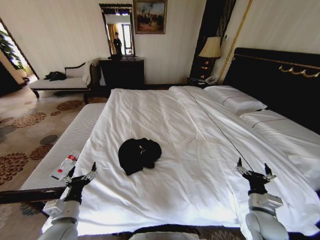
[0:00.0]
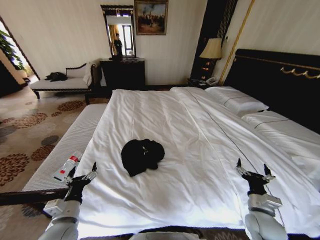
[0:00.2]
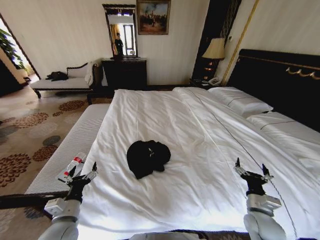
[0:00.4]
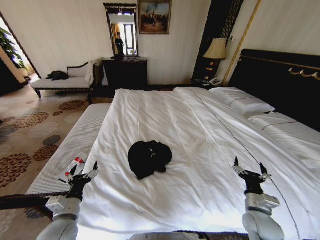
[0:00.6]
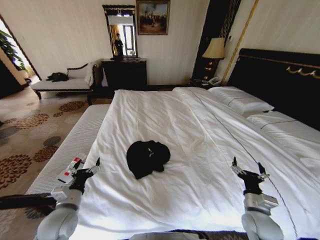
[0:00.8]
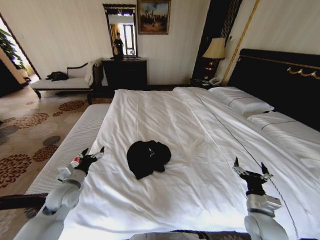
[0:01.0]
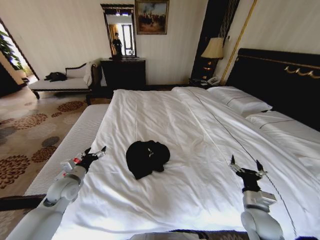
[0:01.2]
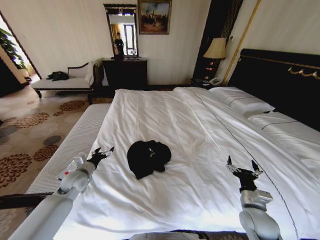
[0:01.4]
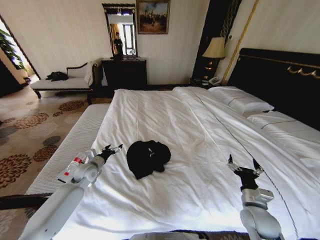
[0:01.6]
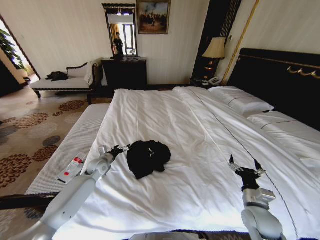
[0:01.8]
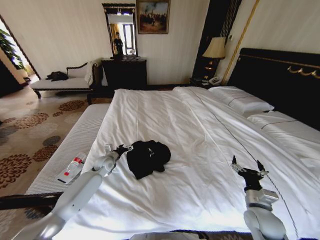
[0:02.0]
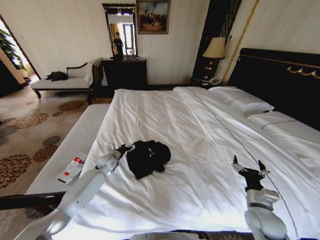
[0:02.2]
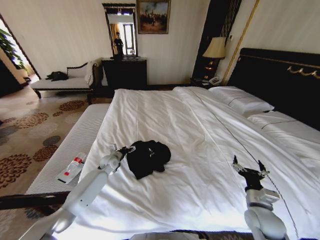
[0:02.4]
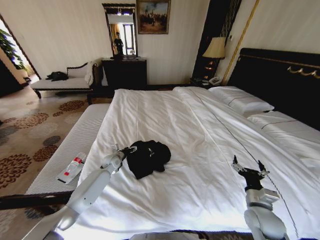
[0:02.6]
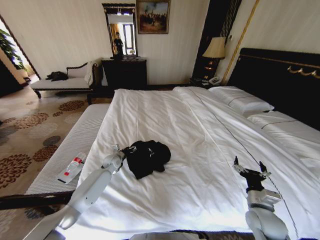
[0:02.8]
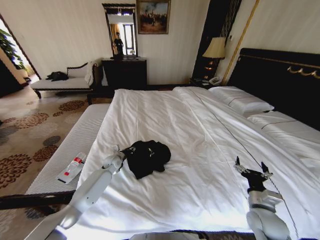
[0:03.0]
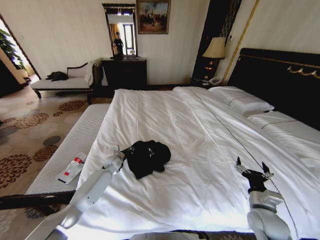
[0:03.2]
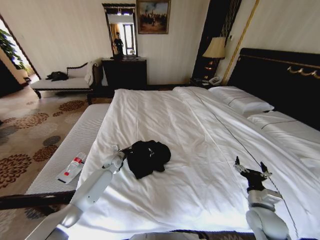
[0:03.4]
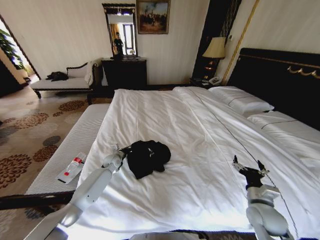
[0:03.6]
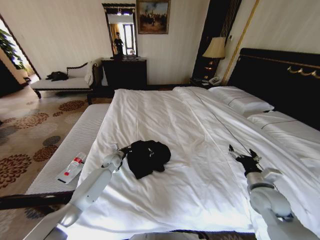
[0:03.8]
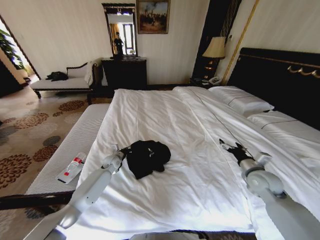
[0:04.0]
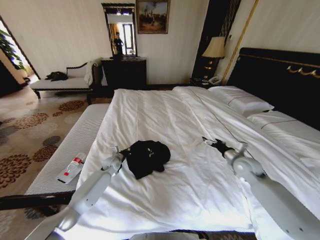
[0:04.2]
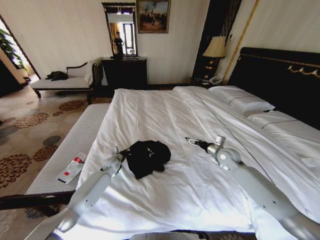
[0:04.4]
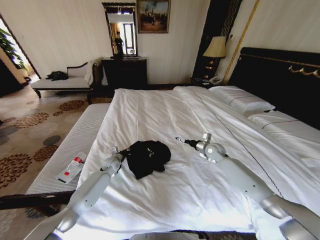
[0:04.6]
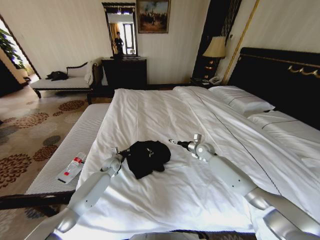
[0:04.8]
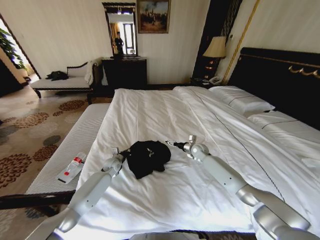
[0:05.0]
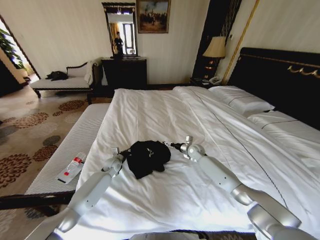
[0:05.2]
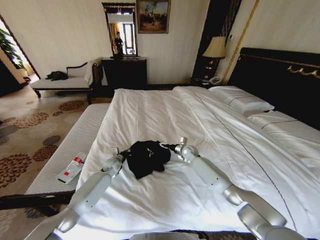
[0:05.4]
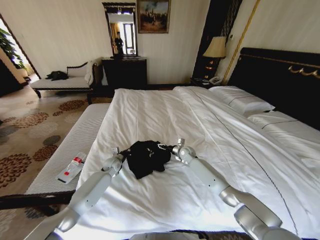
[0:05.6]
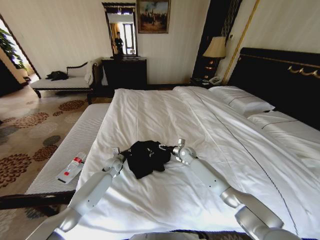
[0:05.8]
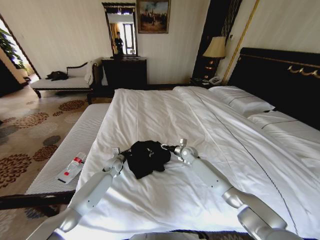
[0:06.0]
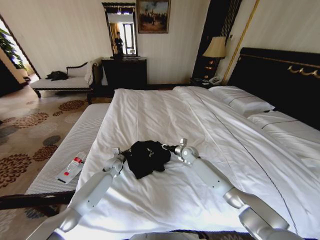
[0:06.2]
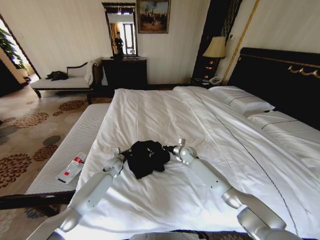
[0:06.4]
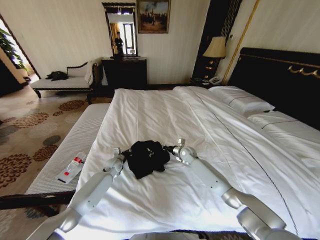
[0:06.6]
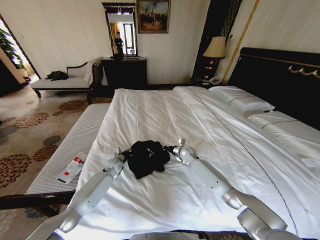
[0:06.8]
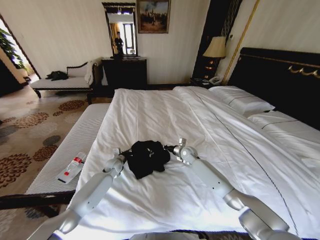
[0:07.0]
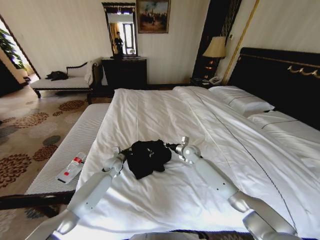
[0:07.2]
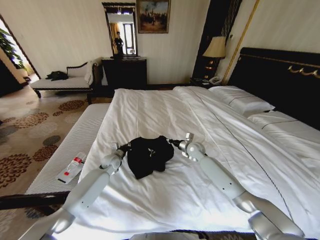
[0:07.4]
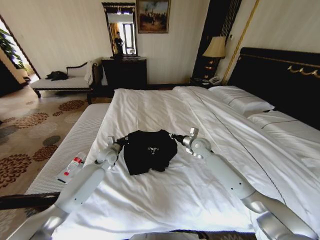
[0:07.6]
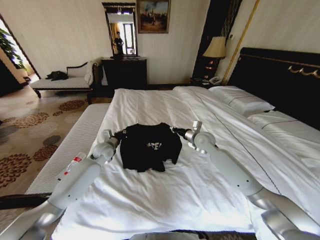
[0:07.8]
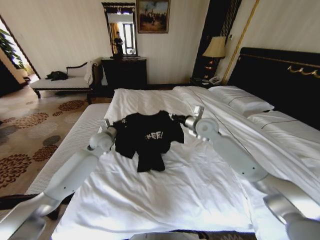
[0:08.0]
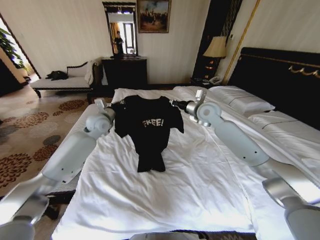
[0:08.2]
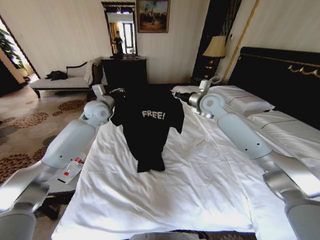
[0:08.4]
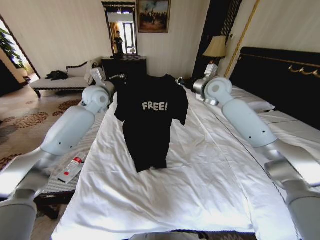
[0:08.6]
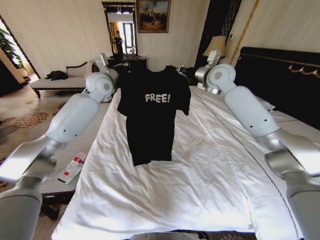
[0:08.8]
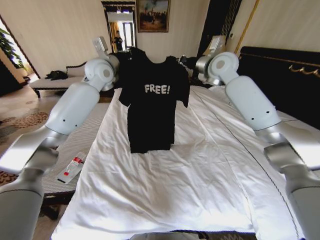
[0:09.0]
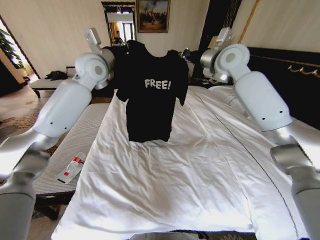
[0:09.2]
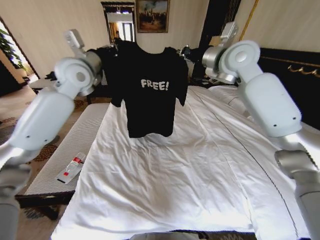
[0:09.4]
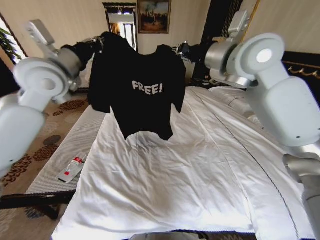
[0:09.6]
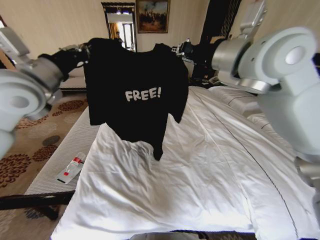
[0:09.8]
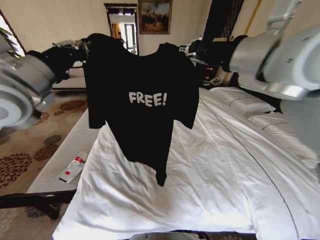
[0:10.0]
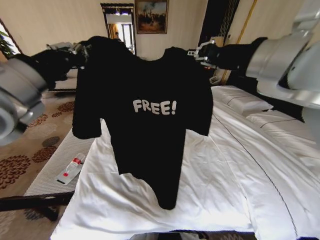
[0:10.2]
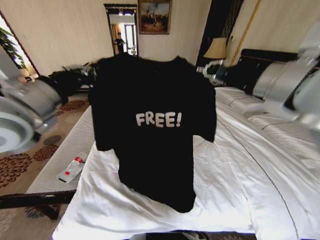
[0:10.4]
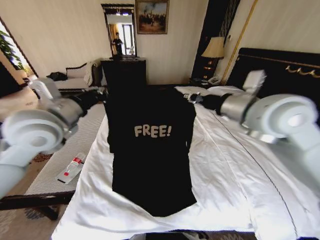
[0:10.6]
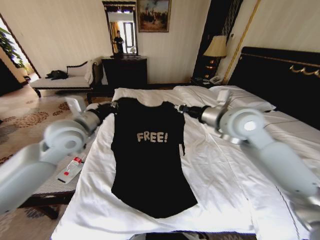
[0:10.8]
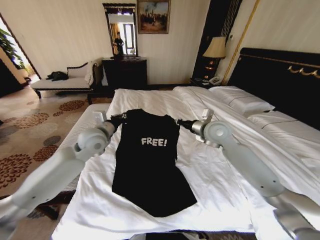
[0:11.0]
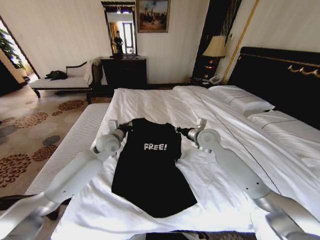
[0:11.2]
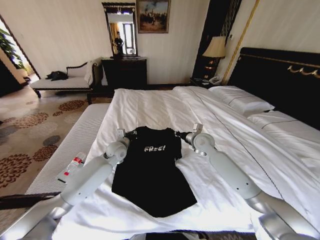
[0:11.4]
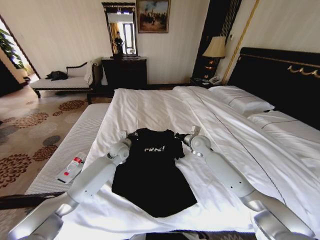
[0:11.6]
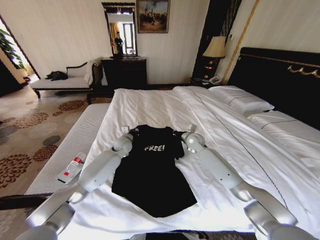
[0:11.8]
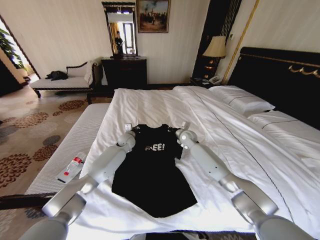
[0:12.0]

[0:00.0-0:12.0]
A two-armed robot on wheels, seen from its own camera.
Task of the whole recording: Fold the clothes on the bed.
0:00.0 to 0:01.6: The left gripper moves forward, approximately 20 cm.
0:01.6 to 0:03.0: The left gripper moves forward, to the right and downward, about 15 cm, and closes.
0:03.0 to 0:04.4: The left gripper closes, while the right gripper is displaced forward by approximately 25 cm.
0:04.4 to 0:06.0: The right gripper is displaced to the left, downward and forward by approximately 20 cm, and closes its fingers.
0:06.0 to 0:07.6: The two grippers go about 10 cm upward. The right gripper closes up.
0:07.6 to 0:09.0: The grippers both shift upward by some 35 cm.
0:09.0 to 0:10.4: The grippers both shift backward by roughly 30 cm.
0:10.4 to 0:12.0: Both grippers travel together downward and forward, roughly 50 cm.

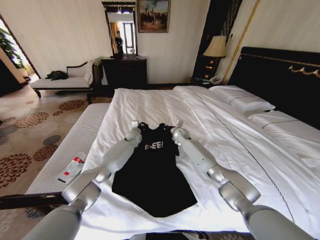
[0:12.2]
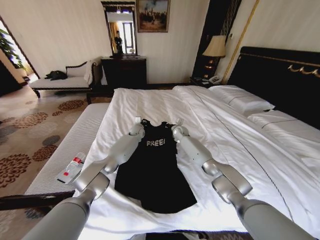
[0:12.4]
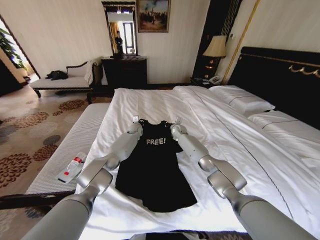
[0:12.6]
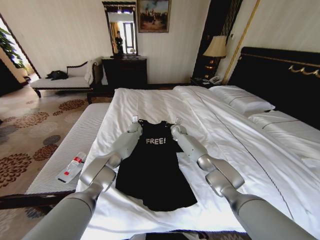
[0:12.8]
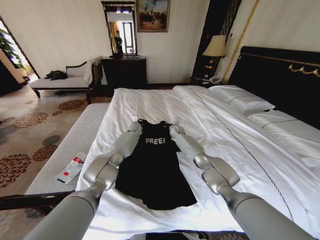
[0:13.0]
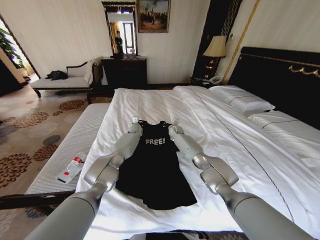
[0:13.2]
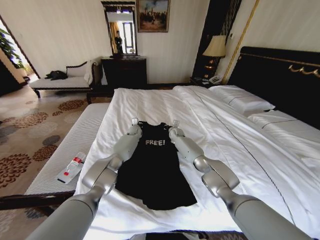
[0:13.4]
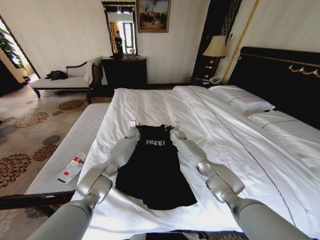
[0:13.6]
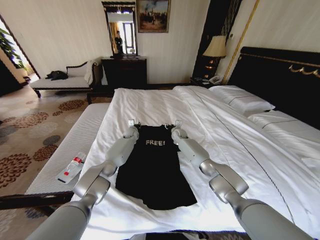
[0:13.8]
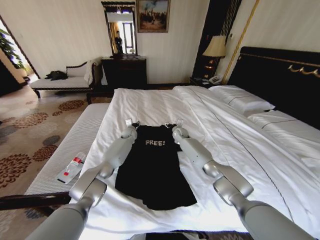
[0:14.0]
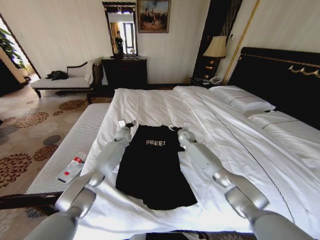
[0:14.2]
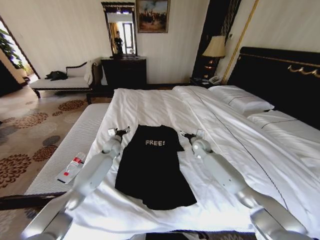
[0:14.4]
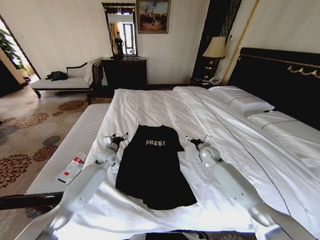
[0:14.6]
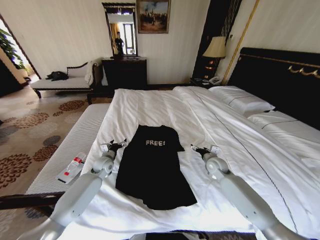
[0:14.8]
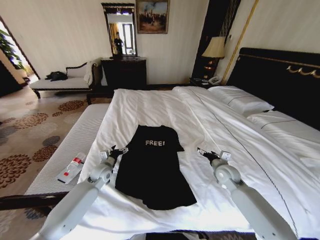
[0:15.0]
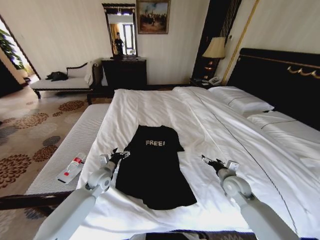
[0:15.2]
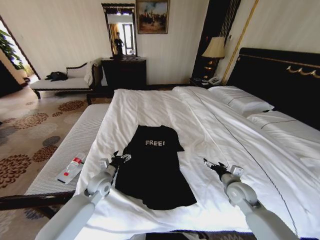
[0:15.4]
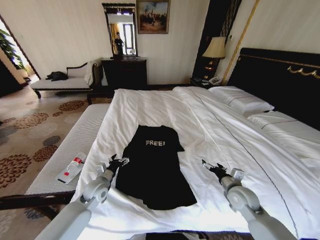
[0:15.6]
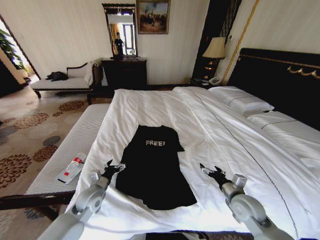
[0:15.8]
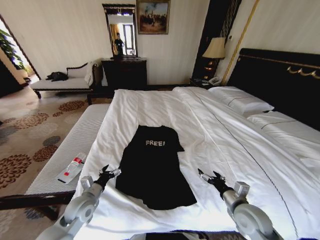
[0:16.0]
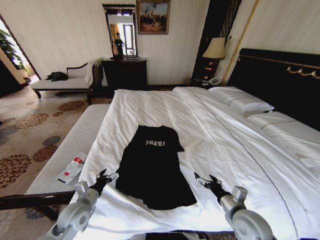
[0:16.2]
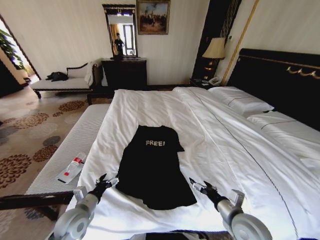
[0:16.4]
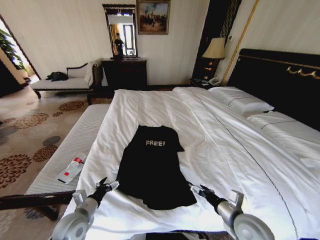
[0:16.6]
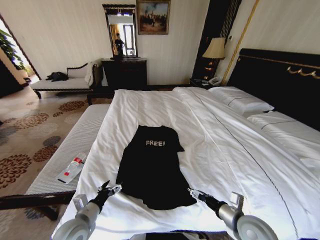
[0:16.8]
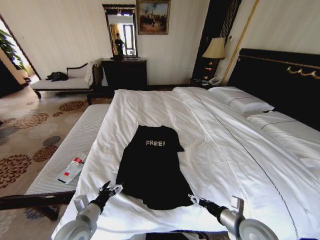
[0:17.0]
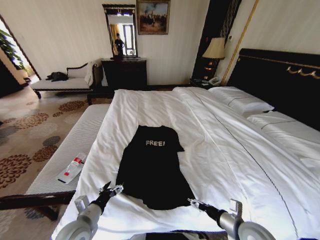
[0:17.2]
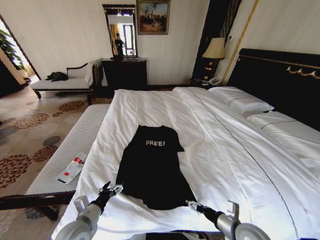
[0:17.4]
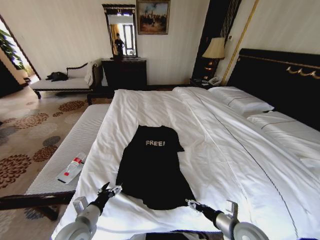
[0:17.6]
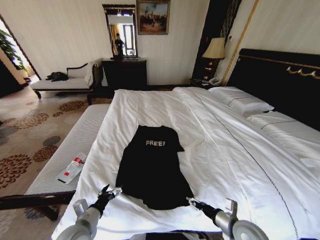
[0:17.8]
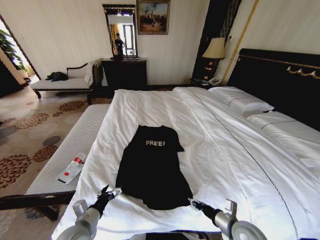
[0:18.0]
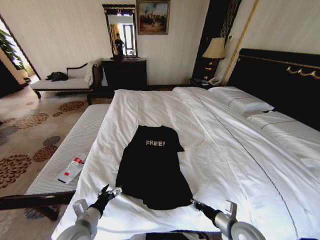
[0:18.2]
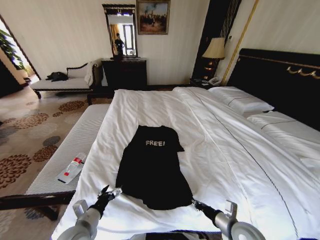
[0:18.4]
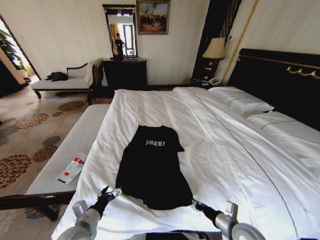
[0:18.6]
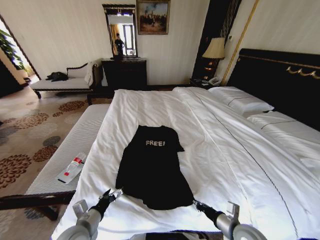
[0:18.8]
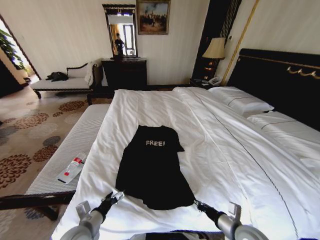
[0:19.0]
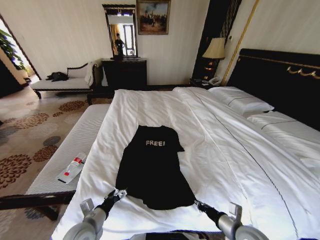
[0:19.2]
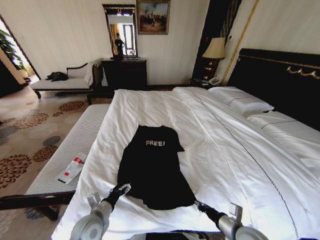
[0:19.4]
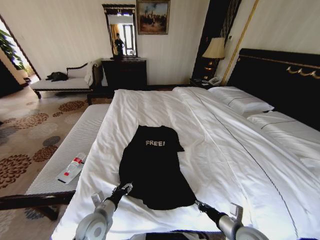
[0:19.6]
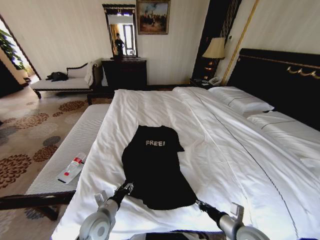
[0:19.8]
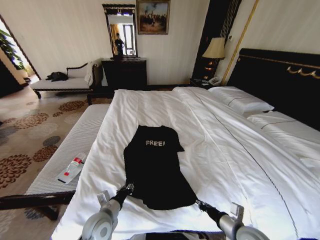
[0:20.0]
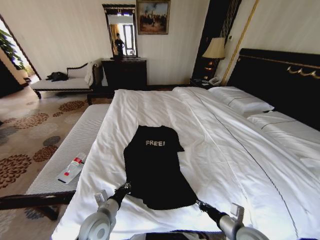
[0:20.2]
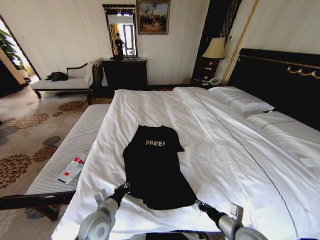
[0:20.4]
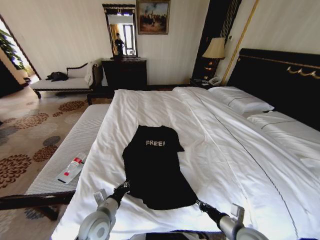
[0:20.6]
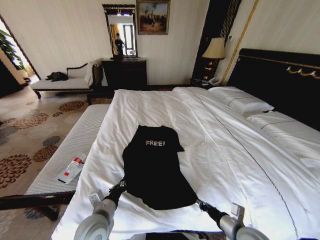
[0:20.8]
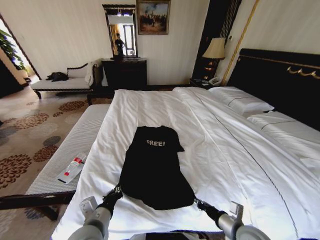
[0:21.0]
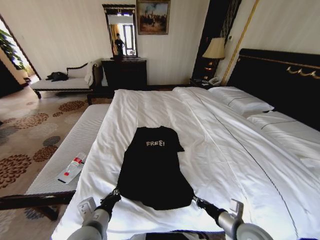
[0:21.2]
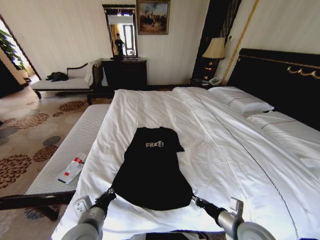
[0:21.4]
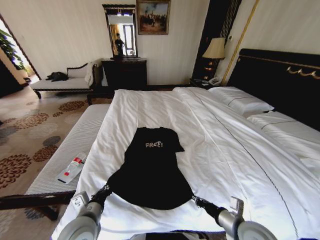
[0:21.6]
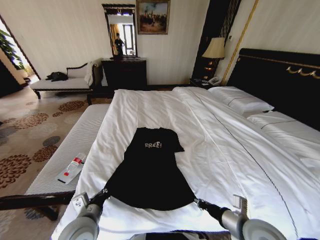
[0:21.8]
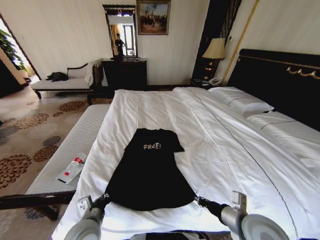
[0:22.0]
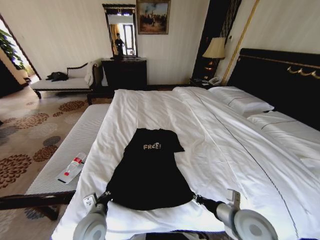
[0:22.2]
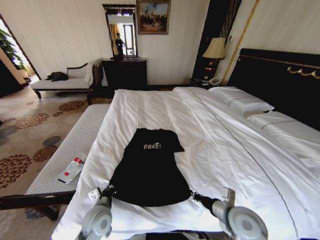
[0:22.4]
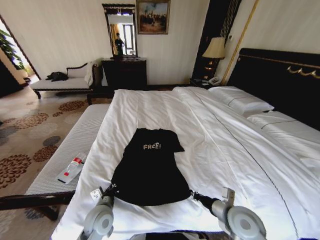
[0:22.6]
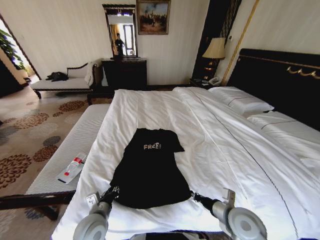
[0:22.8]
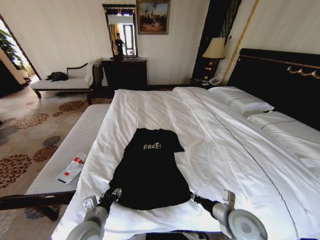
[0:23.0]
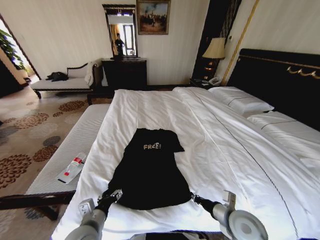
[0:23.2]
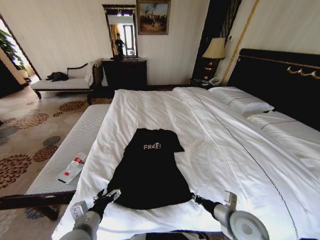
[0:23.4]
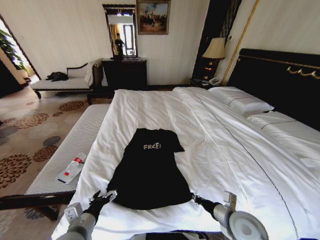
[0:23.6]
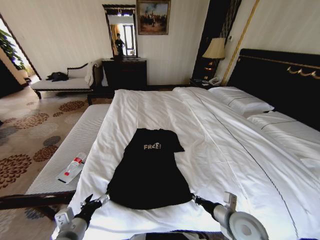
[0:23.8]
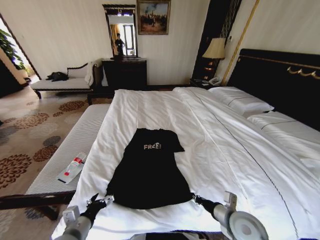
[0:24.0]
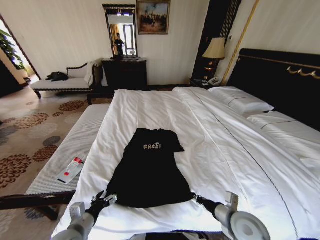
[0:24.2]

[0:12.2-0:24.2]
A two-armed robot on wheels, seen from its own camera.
Task of the whole recording: Fold the clothes on the bed.
0:12.2 to 0:13.8: The right gripper opens. Meanwhile the left gripper opens.
0:13.8 to 0:15.2: The left gripper shifts approximately 30 cm backward and to the left, and opens, while the right gripper shifts some 35 cm backward and to the right, and opens up.
0:15.2 to 0:16.6: The two grippers go roughly 15 cm backward.
0:16.6 to 0:18.2: The right gripper travels downward by some 5 cm, and closes.
0:18.2 to 0:19.8: The left gripper goes some 5 cm to the right, and closes up.
0:19.8 to 0:21.2: The left gripper shifts approximately 10 cm upward and backward, and closes its fingers.
0:21.2 to 0:22.6: The left gripper heads downward and forward, covering approximately 10 cm. Meanwhile the right gripper ends up some 5 cm from where it was.
0:22.6 to 0:24.2: The left gripper travels to the left and backward by about 10 cm, and opens its fingers.
